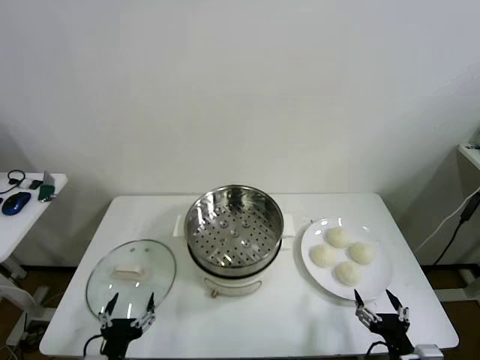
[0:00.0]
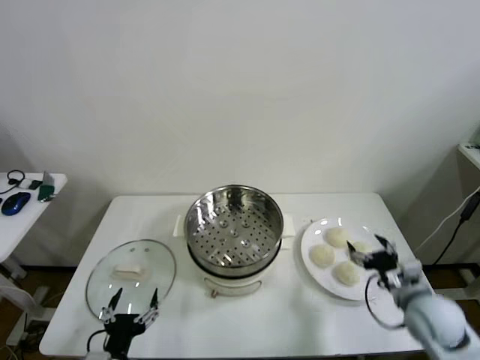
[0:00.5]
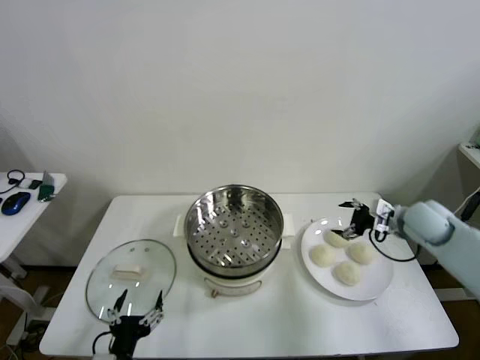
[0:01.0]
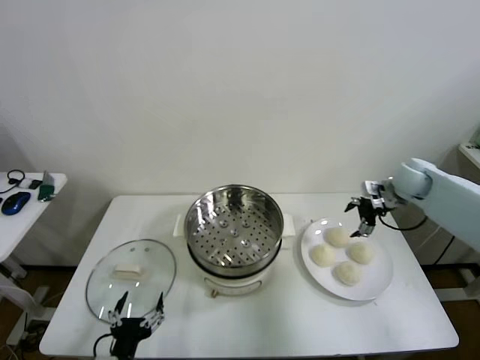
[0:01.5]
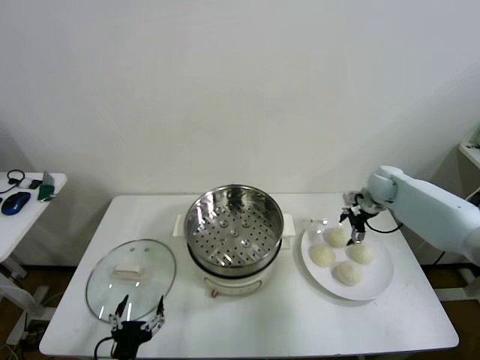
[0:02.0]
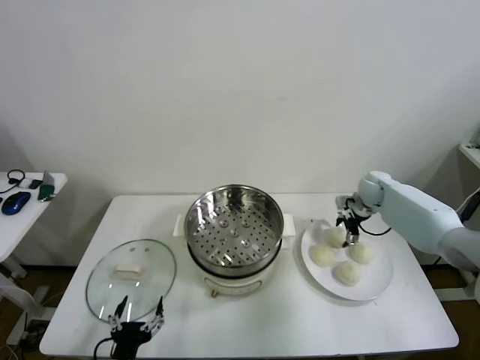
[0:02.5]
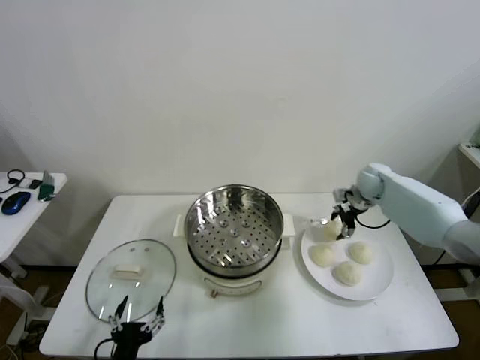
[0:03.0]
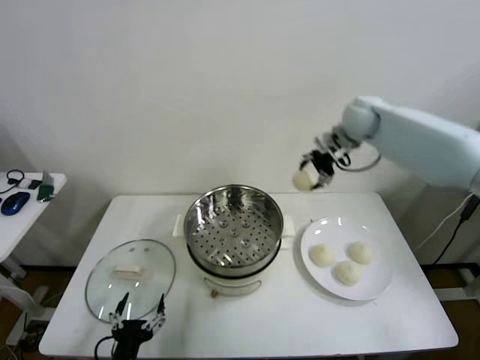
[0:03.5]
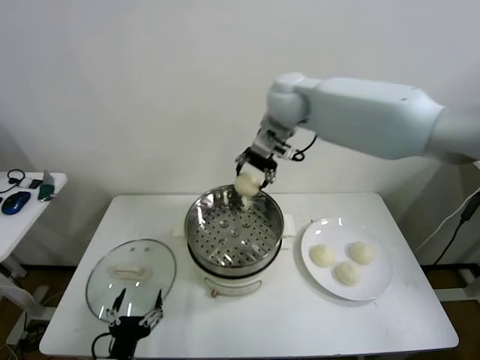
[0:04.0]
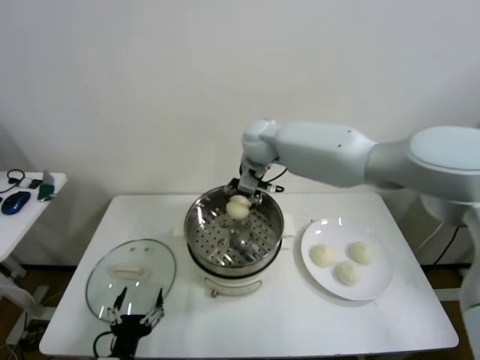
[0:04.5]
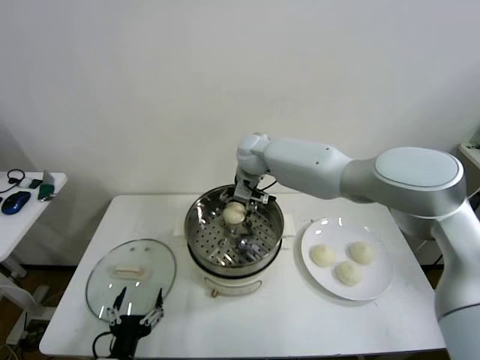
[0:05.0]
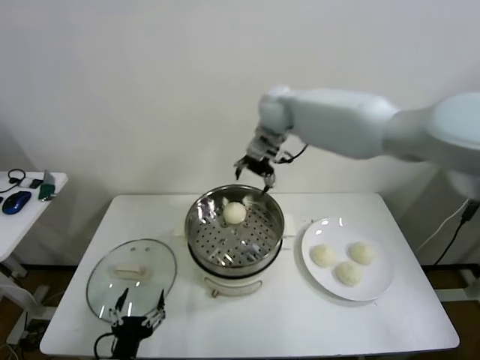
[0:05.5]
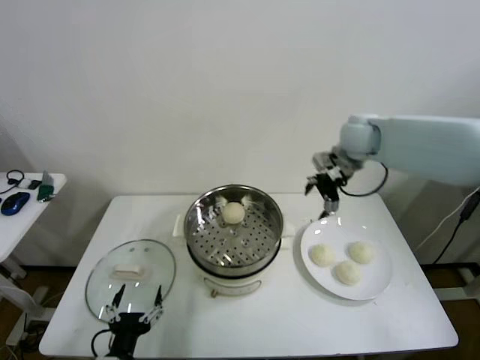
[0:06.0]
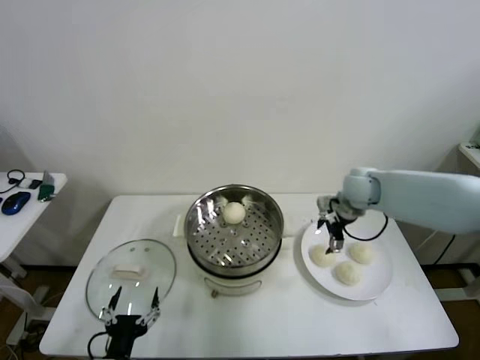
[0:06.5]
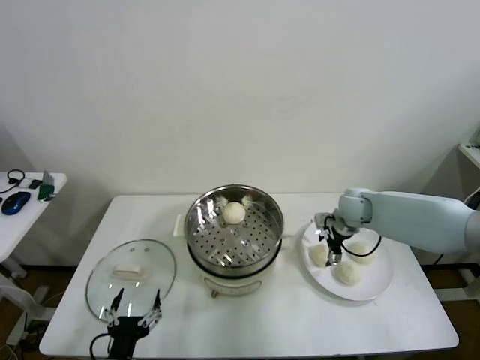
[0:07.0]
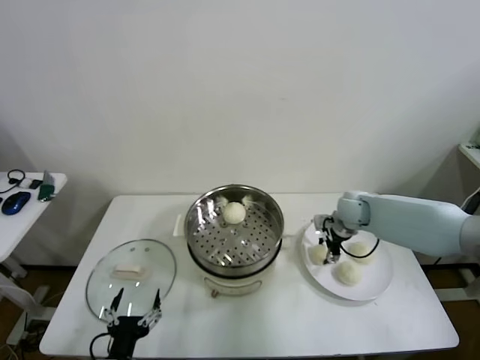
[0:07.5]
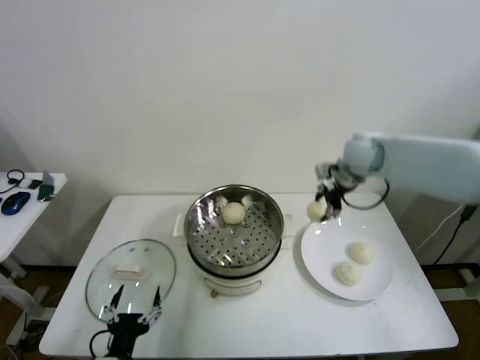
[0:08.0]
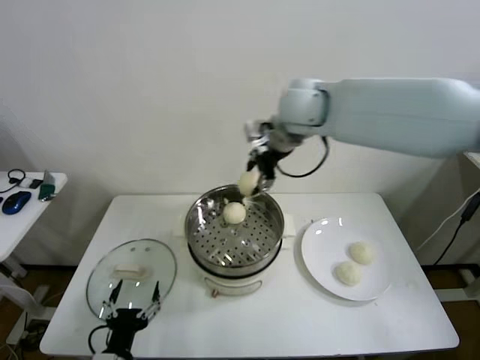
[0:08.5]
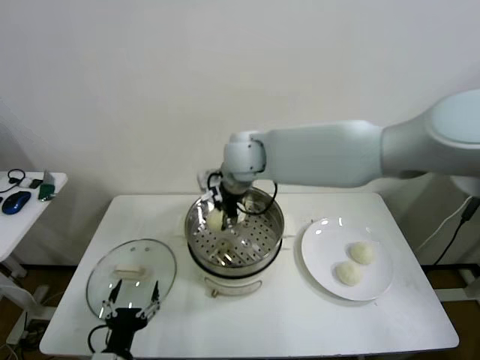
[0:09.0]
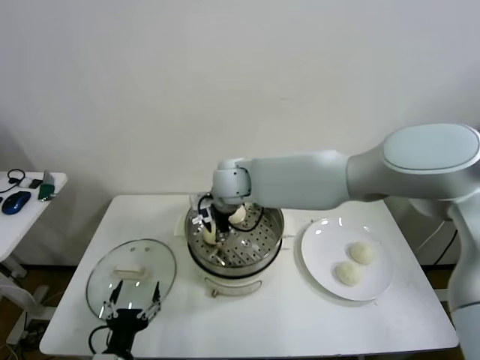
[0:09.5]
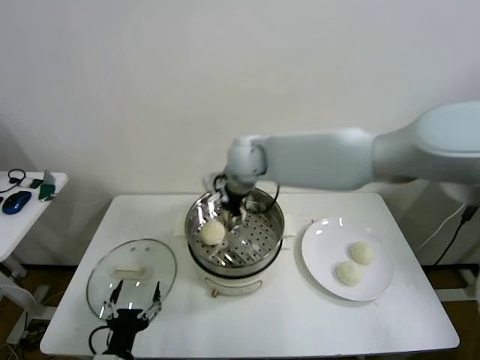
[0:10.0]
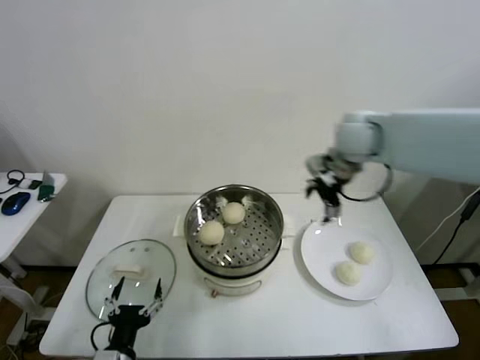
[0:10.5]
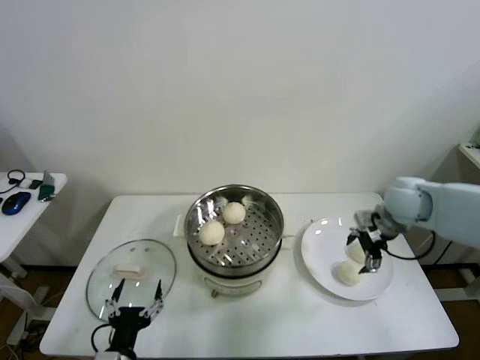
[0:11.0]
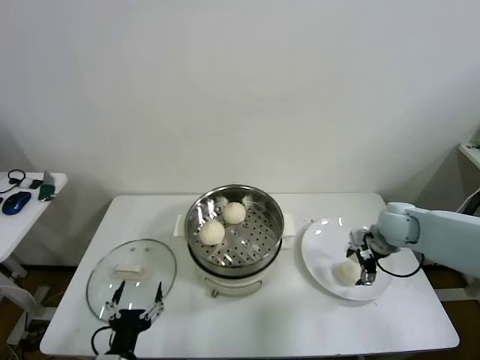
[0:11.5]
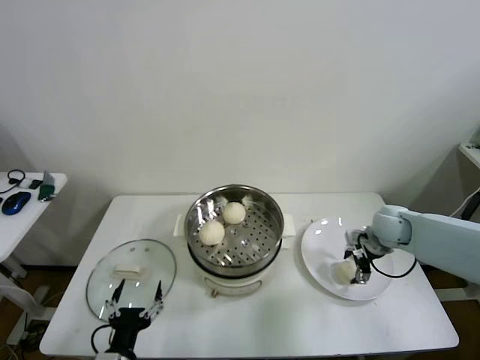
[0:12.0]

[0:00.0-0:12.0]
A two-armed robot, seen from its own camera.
Step, 0.0 to 2.5 s: Grasp the baozi in the plate with right gripper.
Step, 3.0 to 5.0 s: Place the baozi on the steamer with right gripper.
Step, 5.5 to 7.0 s: Grasp the baozi in the plate with right gripper.
Step, 7.5 to 9.5 s: Place the baozi on the steamer with right gripper.
2.0 to 4.0 s: The right gripper heads to the left and upward, covering some 40 cm, and closes up.
4.0 to 6.0 s: The right gripper goes about 20 cm to the right and downward, and opens.
6.0 to 8.0 s: The right gripper moves about 15 cm downward and comes back, and closes.
8.0 to 10.0 s: The right gripper heads to the left, covering about 20 cm, and opens up.
10.0 to 12.0 s: The right gripper heads to the right and downward, covering approximately 40 cm, and closes its fingers.

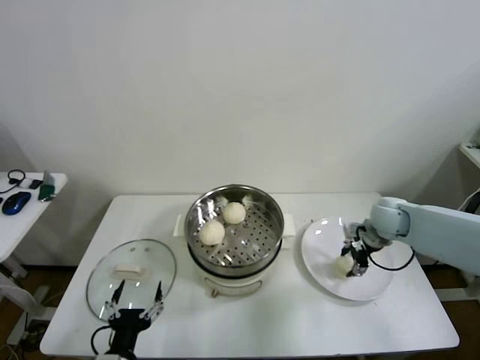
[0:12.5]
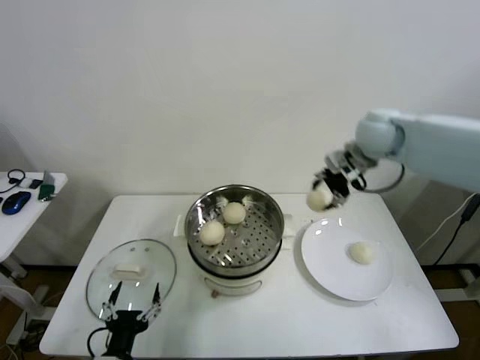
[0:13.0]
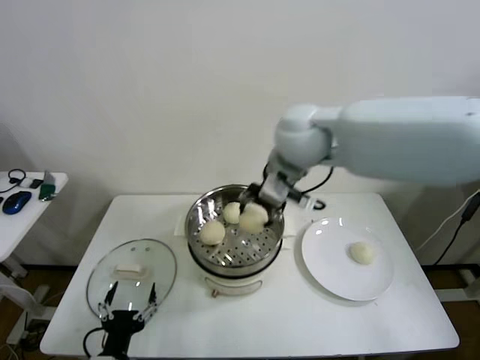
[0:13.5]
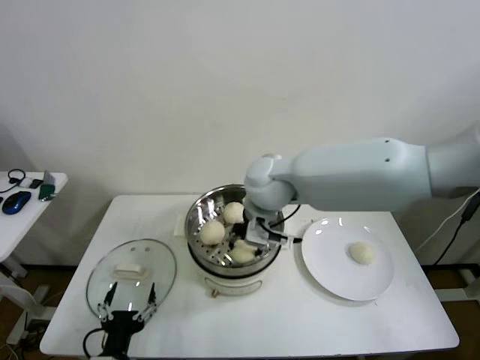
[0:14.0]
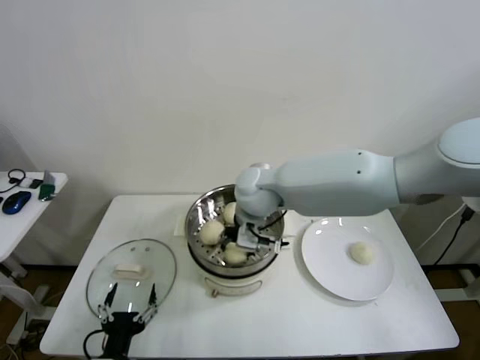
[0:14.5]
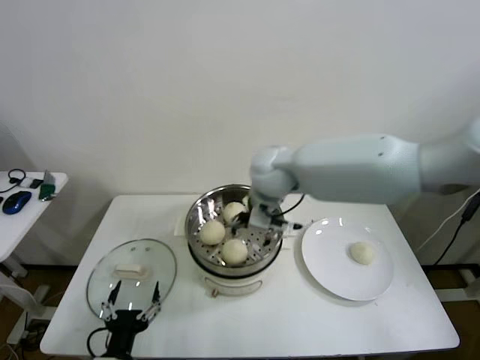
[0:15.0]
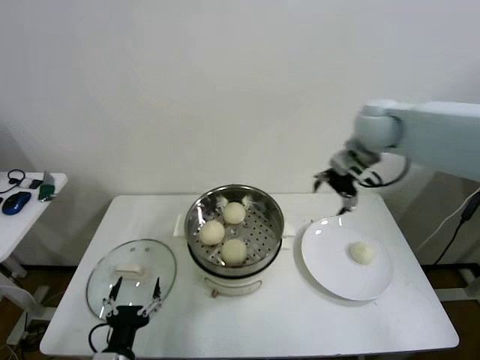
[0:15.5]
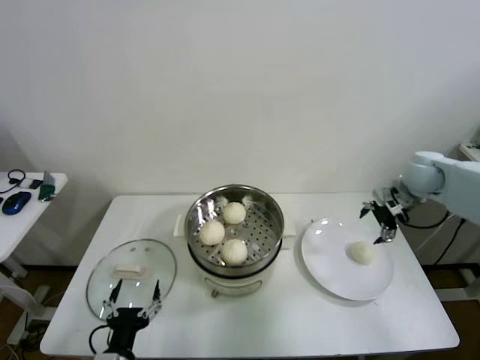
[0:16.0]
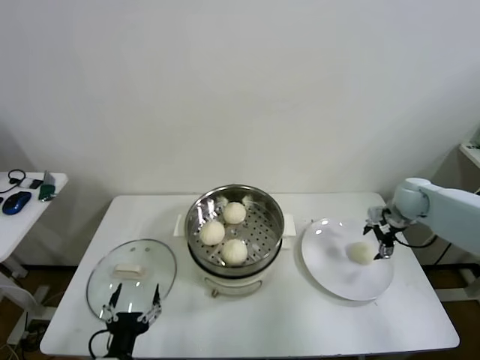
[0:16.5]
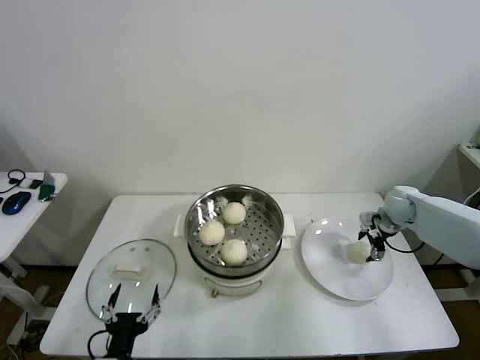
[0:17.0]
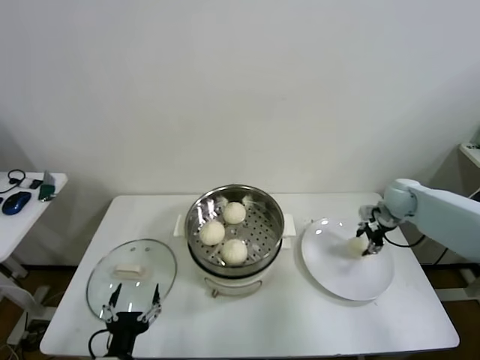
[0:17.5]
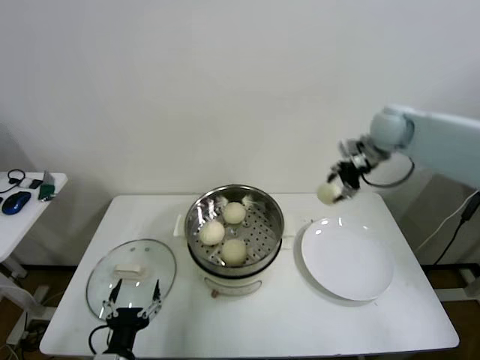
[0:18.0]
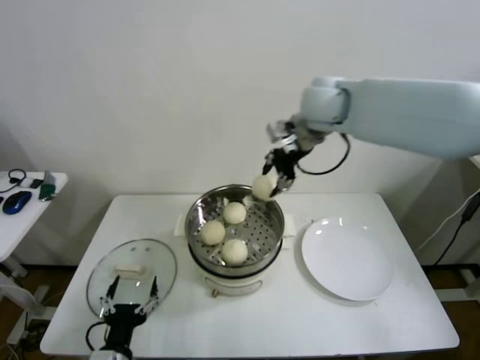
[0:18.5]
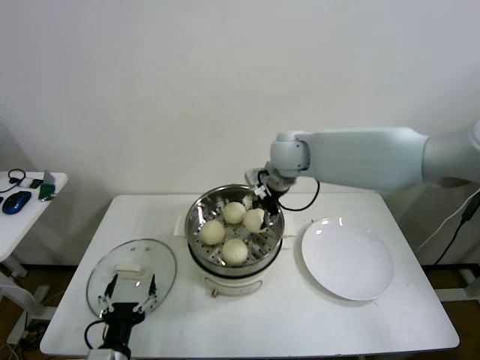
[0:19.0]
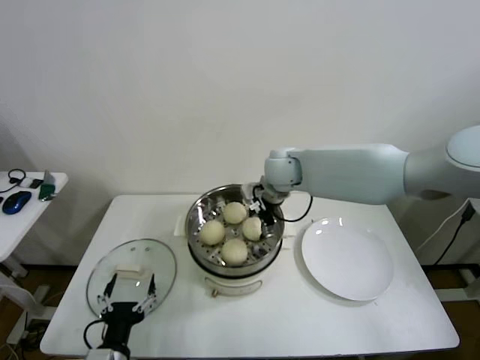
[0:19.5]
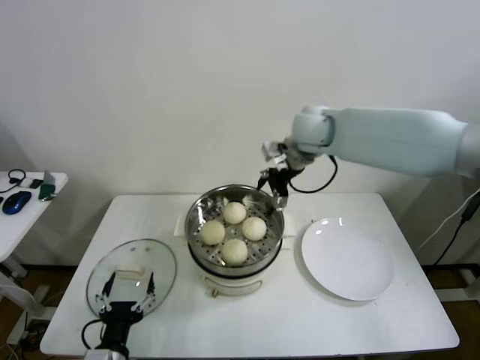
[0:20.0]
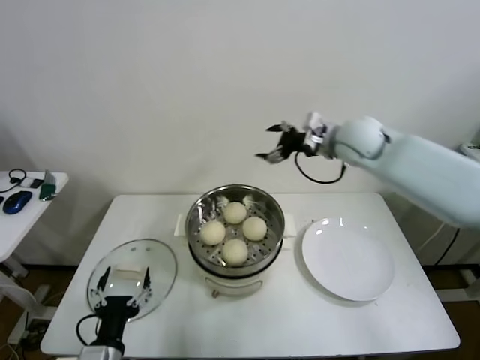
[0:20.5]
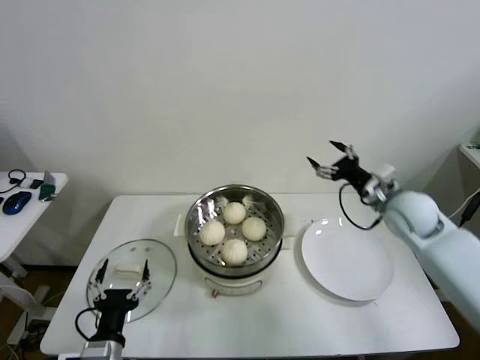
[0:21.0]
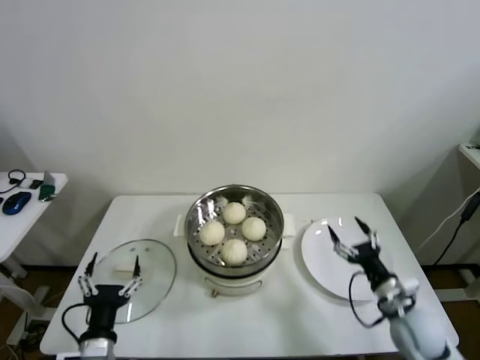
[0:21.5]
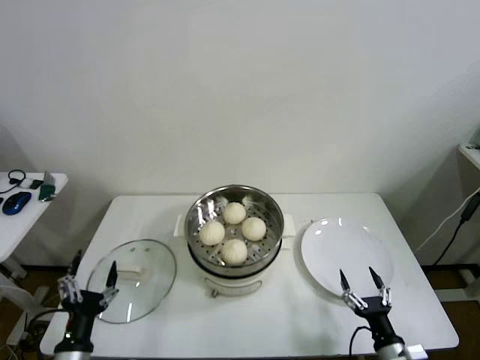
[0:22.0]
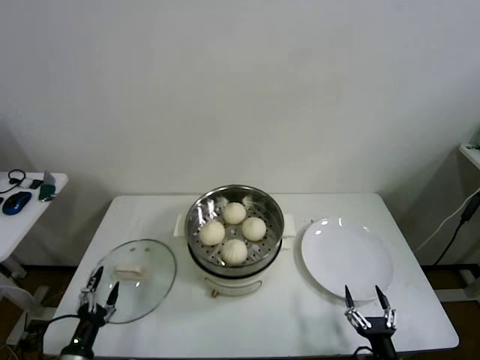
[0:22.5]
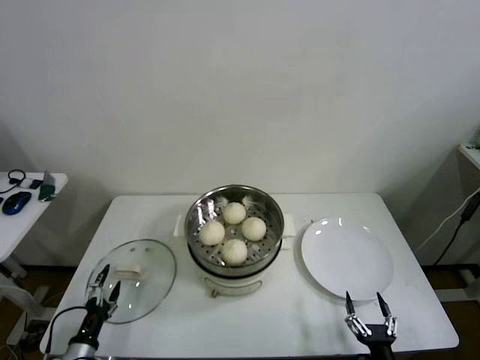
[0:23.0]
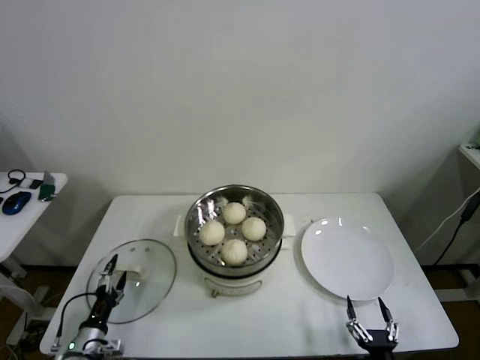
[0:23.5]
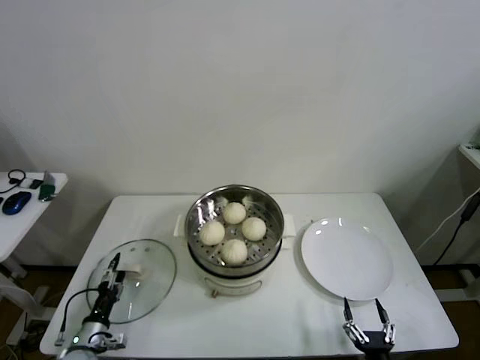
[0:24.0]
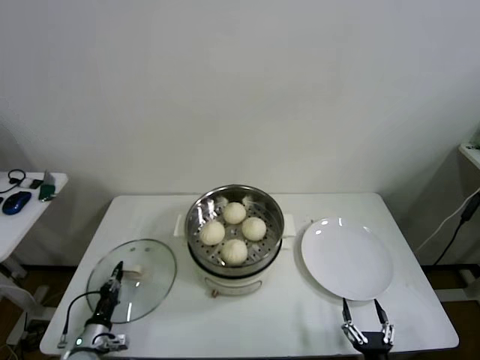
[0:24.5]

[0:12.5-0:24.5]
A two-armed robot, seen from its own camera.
Step, 12.5 to 14.5 s: Place the baozi on the steamer with right gripper.
Step, 15.0 to 17.0 s: Grasp the baozi in the plate with right gripper.
Step, 17.5 to 19.5 s: Place the baozi on the steamer with right gripper.
Step, 20.0 to 24.5 s: Grasp the pot lid with left gripper.
12.5 to 14.5 s: The right gripper travels to the left by approximately 35 cm.
14.5 to 16.5 s: The right gripper travels to the right by some 40 cm, and opens its fingers.
16.5 to 18.5 s: The right gripper goes approximately 40 cm to the left and upward, and closes.
18.5 to 20.5 s: The right gripper goes some 15 cm to the right and downward, and opens.
20.5 to 22.5 s: The left gripper travels to the left and downward by about 15 cm, while the right gripper goes approximately 60 cm backward and downward.
22.5 to 24.5 s: The left gripper moves forward and downward, about 10 cm, and closes.

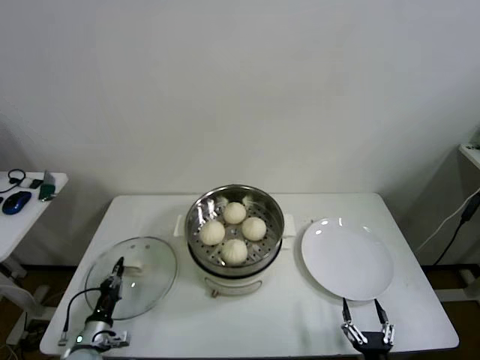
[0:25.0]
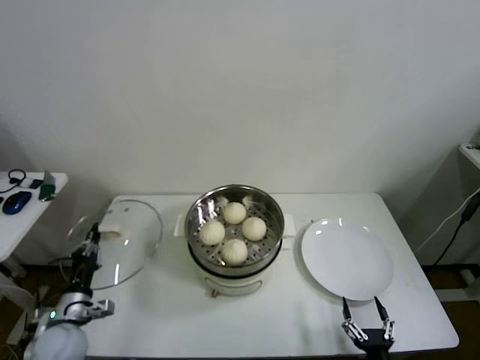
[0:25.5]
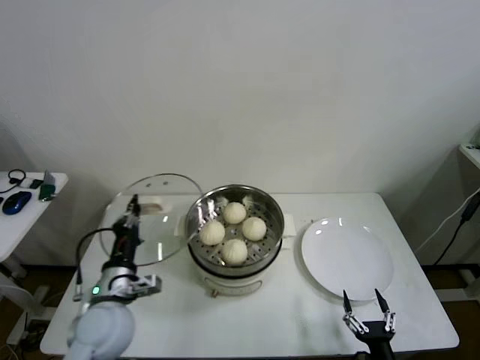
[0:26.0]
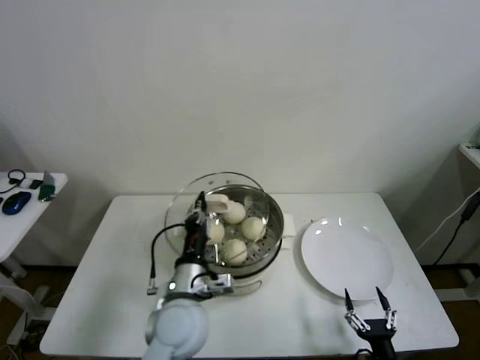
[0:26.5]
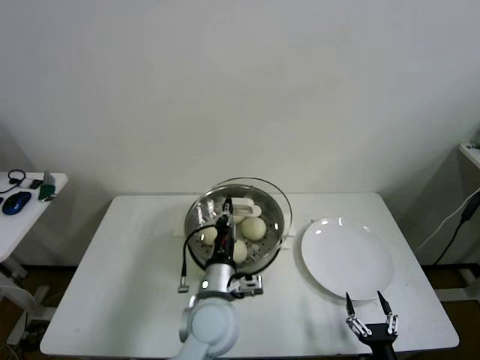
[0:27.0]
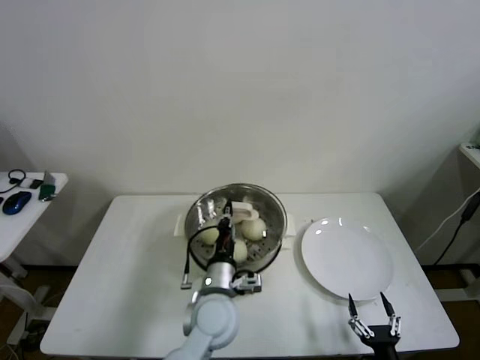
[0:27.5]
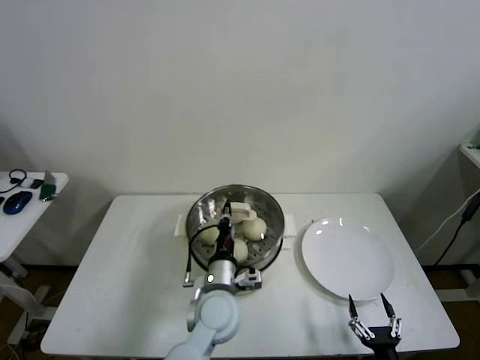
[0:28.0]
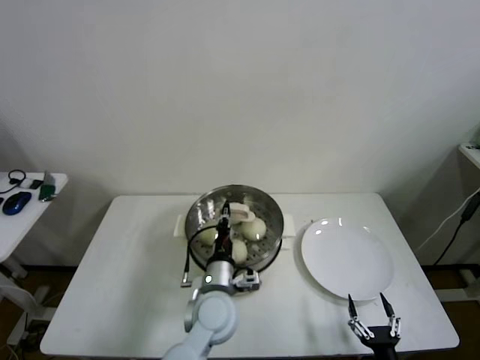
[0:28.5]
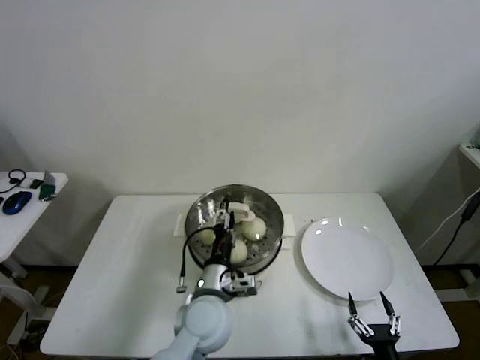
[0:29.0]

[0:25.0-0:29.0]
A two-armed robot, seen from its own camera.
Step, 25.0 to 28.5 s: Place the pot lid on the steamer with left gripper.
25.0 to 27.0 s: The left gripper heads to the right and upward, covering approximately 40 cm.
27.0 to 29.0 s: The left gripper opens.
